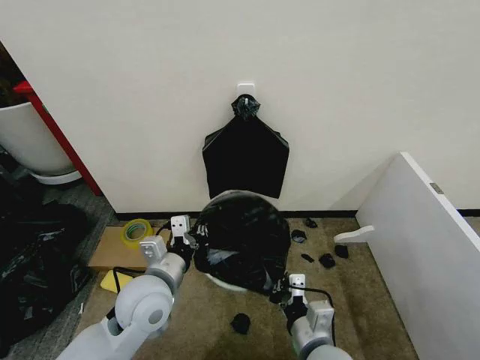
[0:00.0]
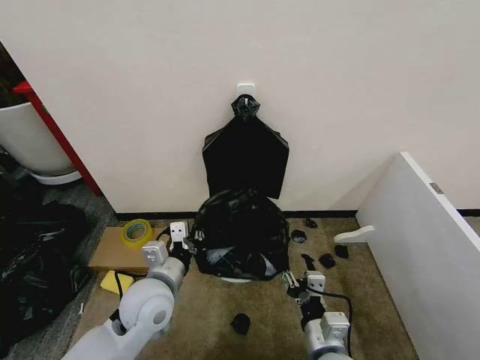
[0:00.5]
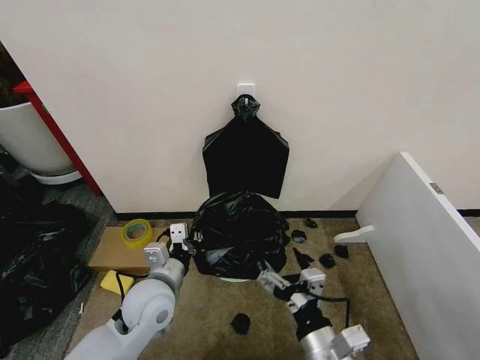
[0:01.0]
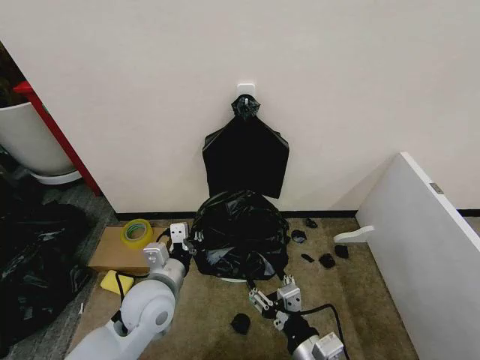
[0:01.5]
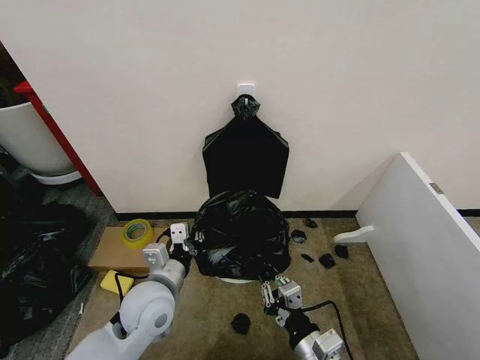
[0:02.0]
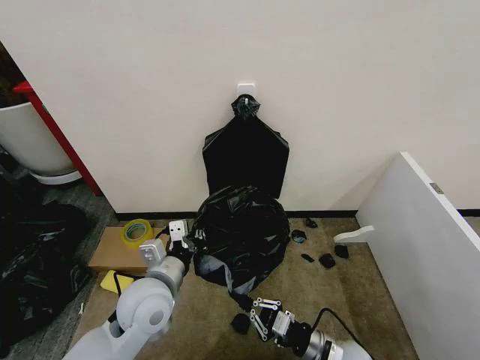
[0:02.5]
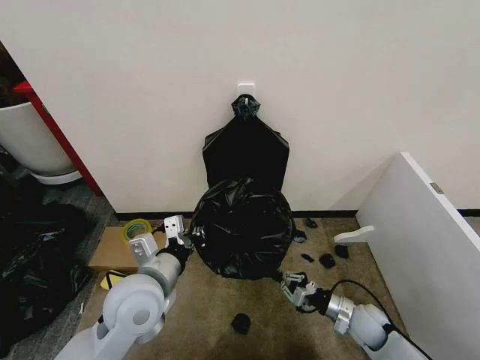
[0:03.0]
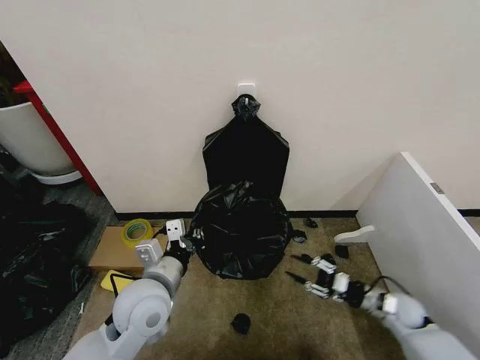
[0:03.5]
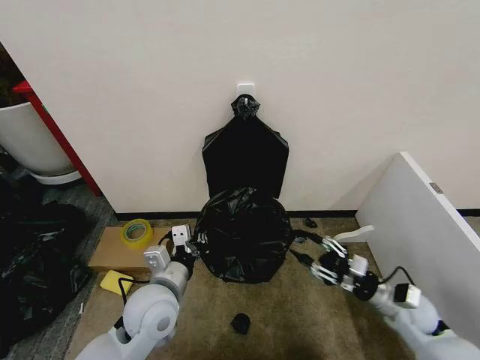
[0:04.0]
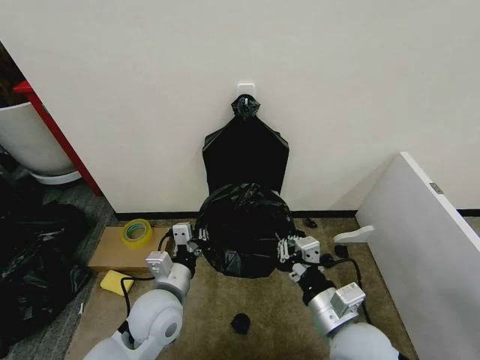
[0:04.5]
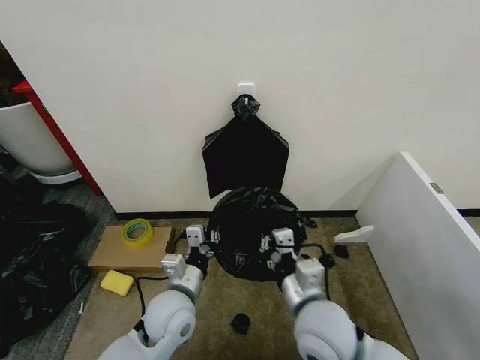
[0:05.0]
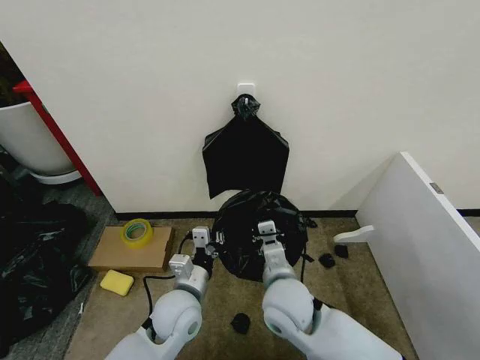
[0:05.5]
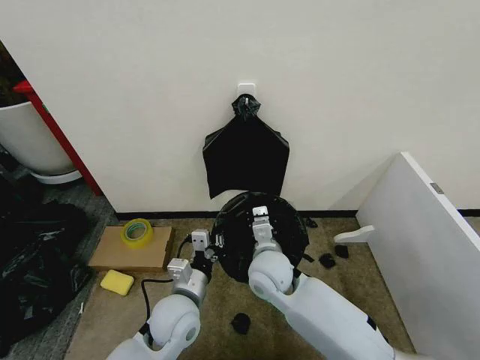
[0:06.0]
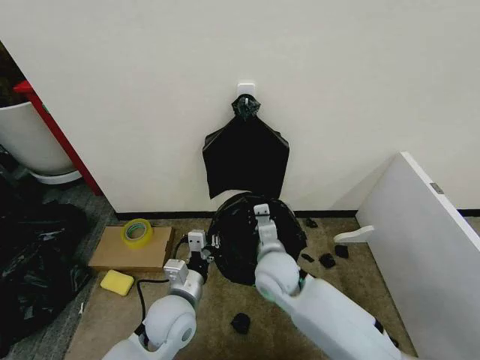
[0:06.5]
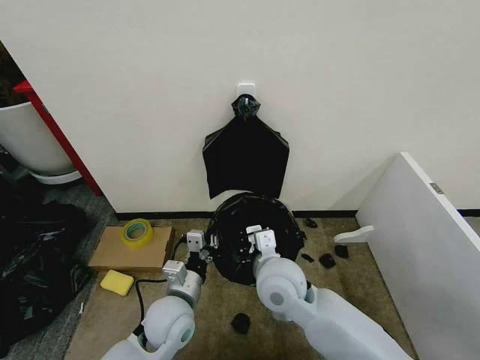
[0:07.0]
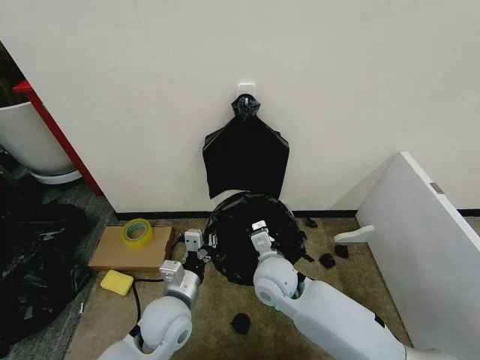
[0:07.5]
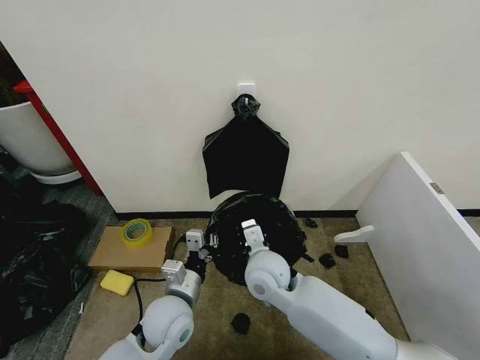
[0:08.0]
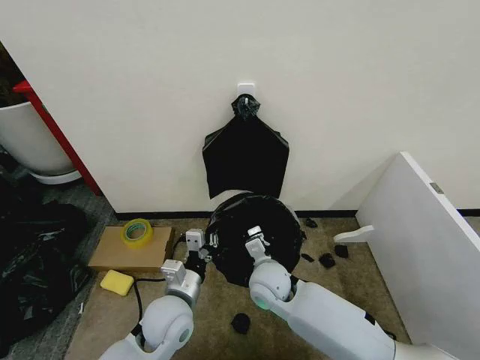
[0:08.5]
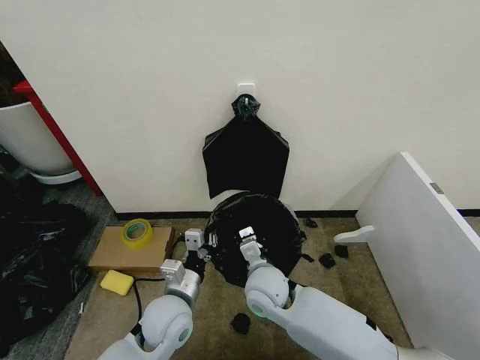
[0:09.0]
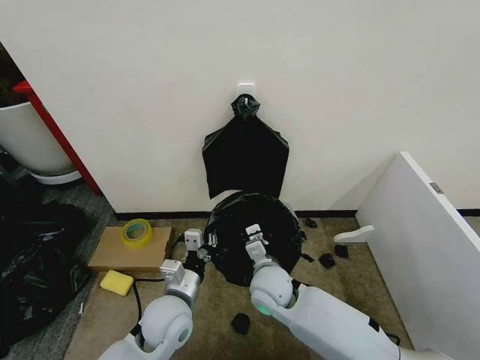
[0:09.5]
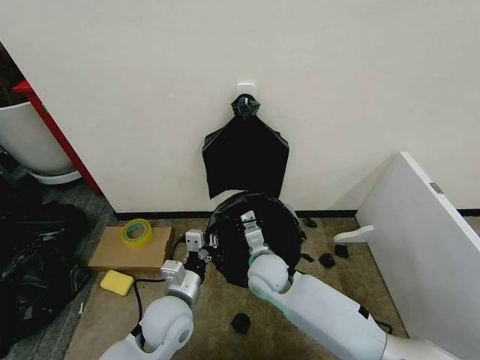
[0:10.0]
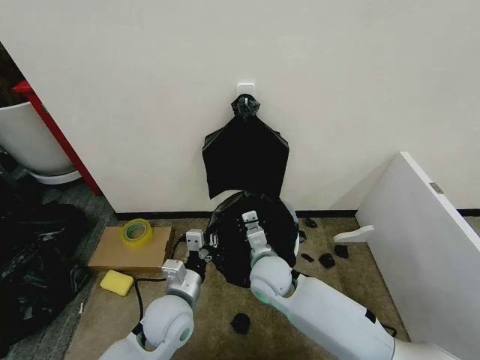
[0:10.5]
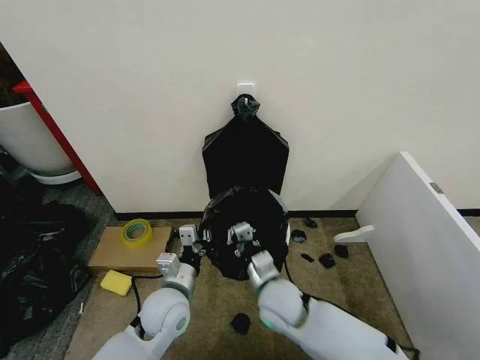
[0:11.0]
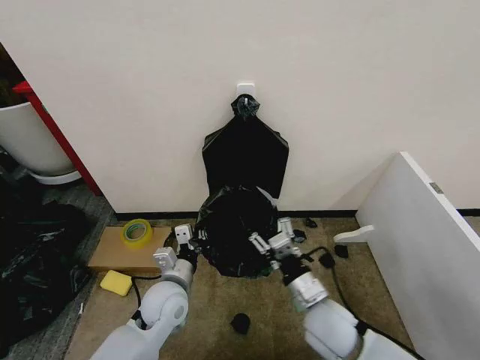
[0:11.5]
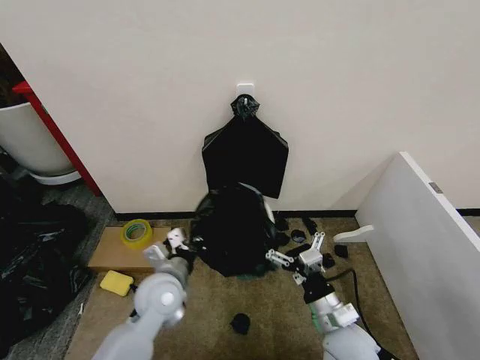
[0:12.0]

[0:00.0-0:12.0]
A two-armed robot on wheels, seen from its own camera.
Task of the whole recording: Place the garbage bag over the trash bin.
0:00.0 to 0:02.0: The right gripper opens, then closes again.
0:02.0 to 0:04.0: The right gripper shifts approximately 25 cm to the right and forward, and opens up.
0:04.0 to 0:06.0: The right gripper goes some 30 cm to the left, and closes. The left gripper ends up some 5 cm from where it was.
0:08.0 to 0:10.0: The right gripper travels downward by approximately 5 cm.
0:10.0 to 0:12.0: The left gripper changes place by roughly 5 cm. The right gripper shifts about 20 cm backward and to the right, and opens its fingers.

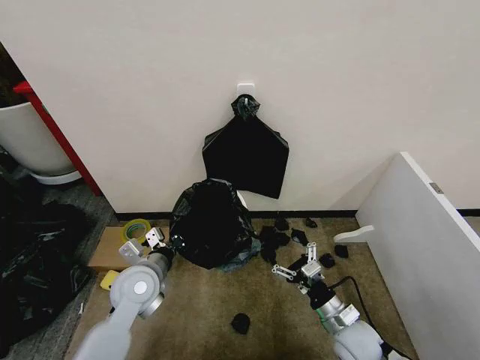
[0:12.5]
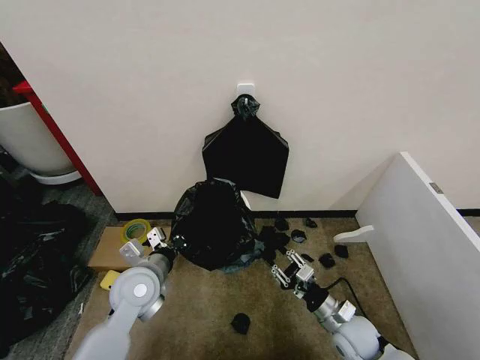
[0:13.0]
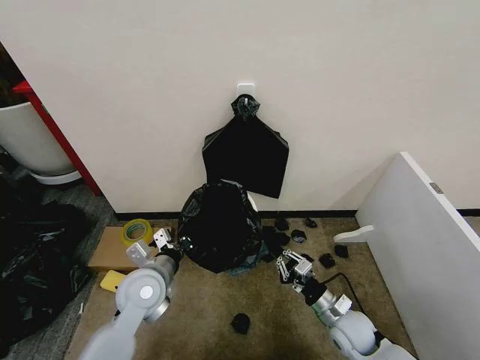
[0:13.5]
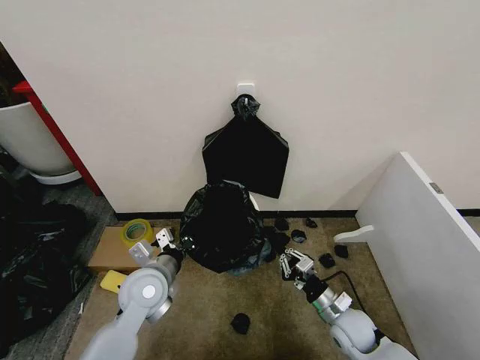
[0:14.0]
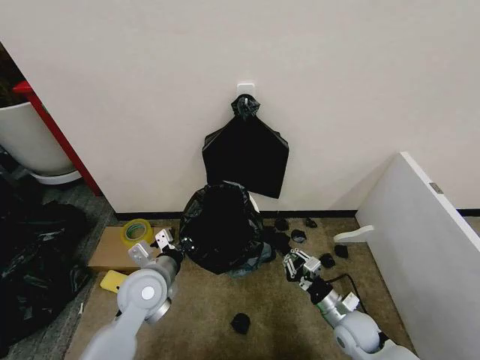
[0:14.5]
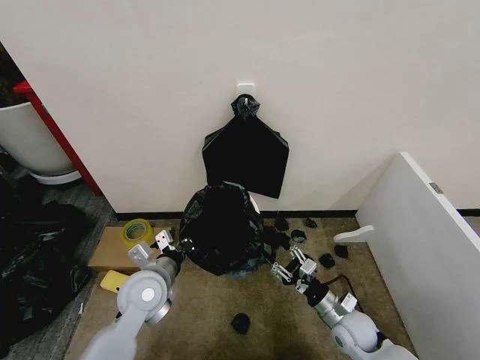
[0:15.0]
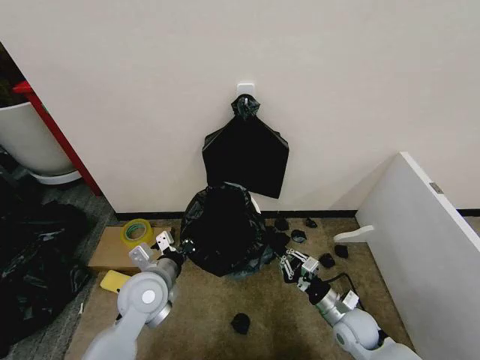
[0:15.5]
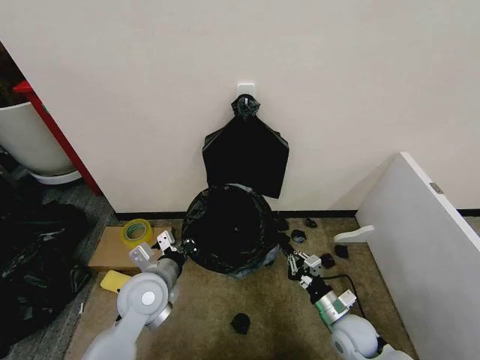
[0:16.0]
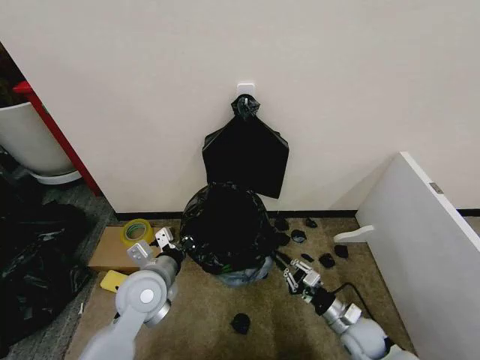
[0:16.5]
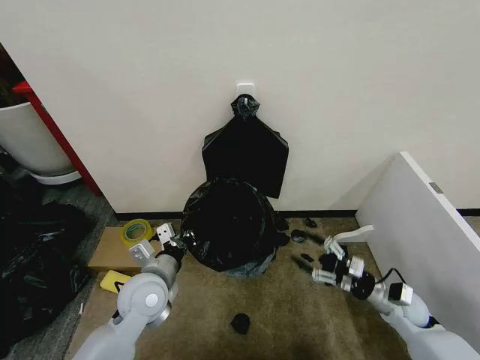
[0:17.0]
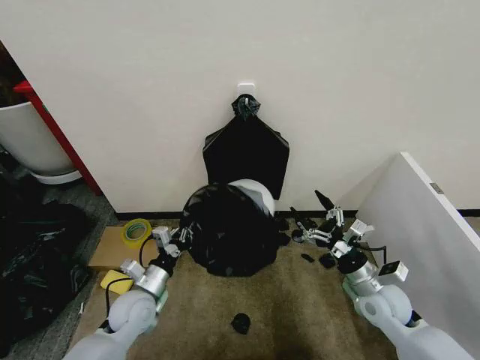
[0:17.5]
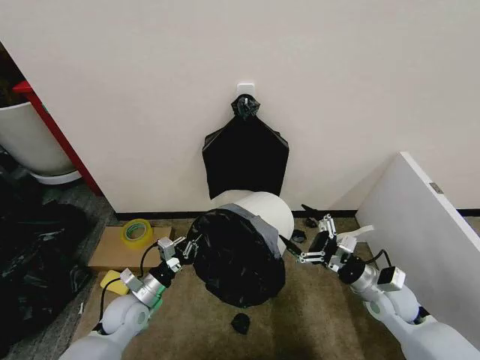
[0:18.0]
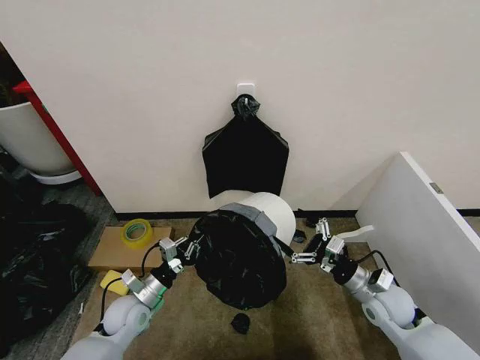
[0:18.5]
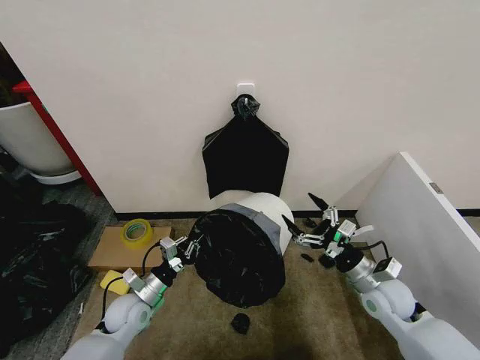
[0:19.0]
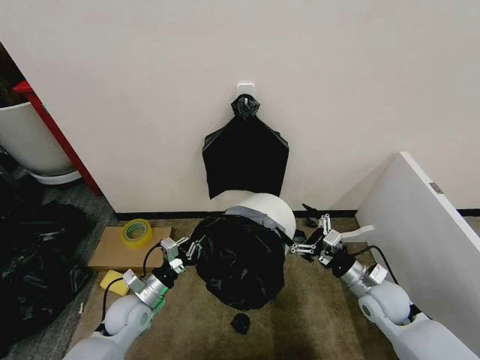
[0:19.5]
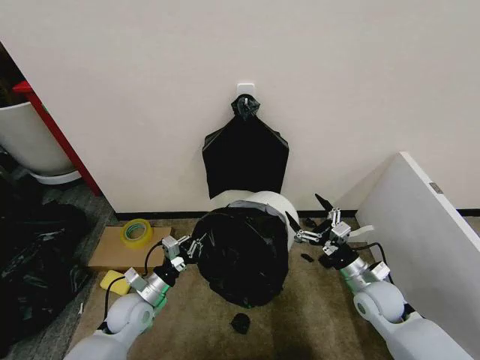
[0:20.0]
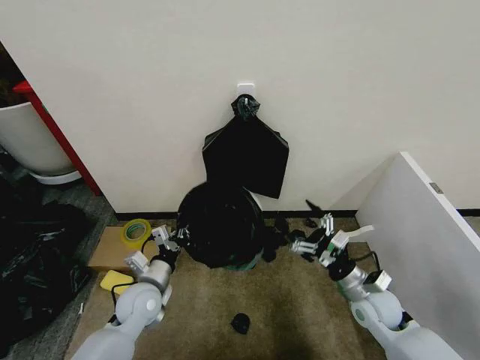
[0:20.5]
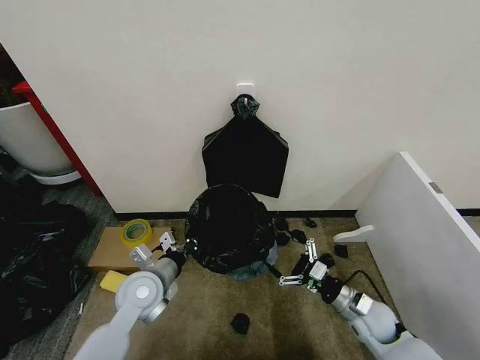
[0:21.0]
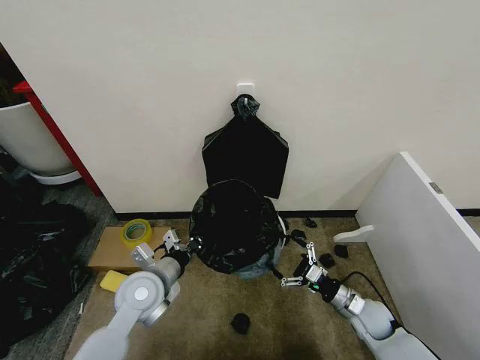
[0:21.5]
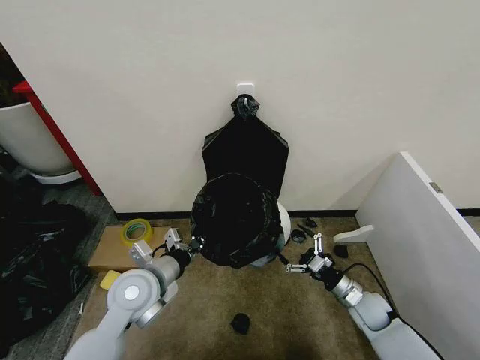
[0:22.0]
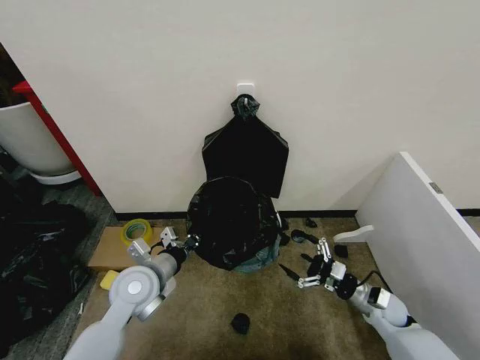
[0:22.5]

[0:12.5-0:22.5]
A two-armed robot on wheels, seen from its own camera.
Task of the whole recording: Place the garbage bag over the trash bin.
0:12.5 to 0:14.5: The right gripper closes up.
0:14.5 to 0:16.5: The right gripper opens and closes again.
0:16.5 to 0:18.5: The left gripper is displaced downward and to the left by about 15 cm. Meanwhile the right gripper is displaced upward by approximately 10 cm, and opens.
0:20.5 to 0:22.5: The left gripper heads upward, covering roughly 10 cm. The right gripper is displaced downward and to the right by some 10 cm.

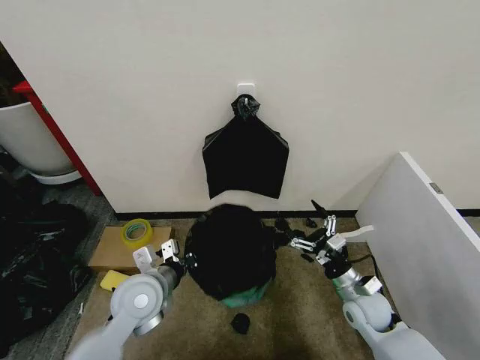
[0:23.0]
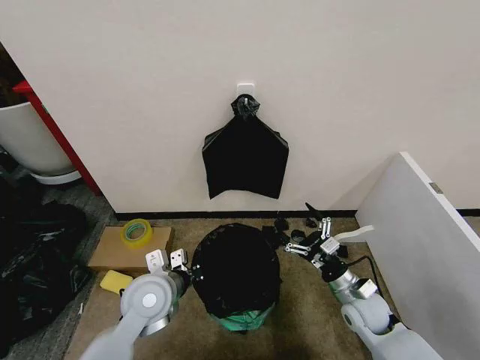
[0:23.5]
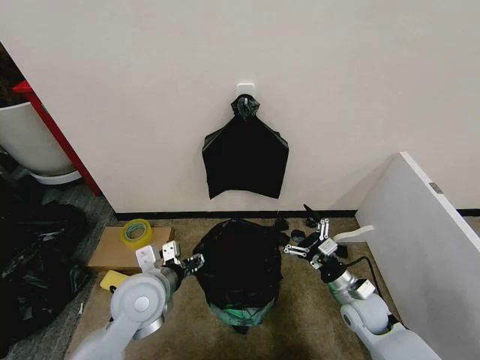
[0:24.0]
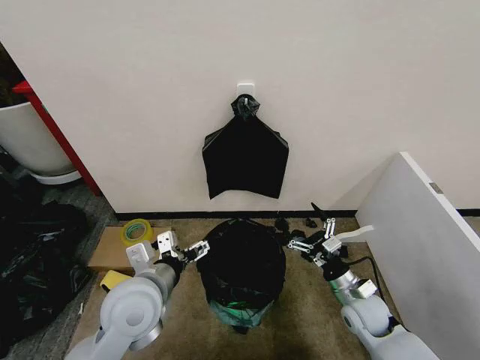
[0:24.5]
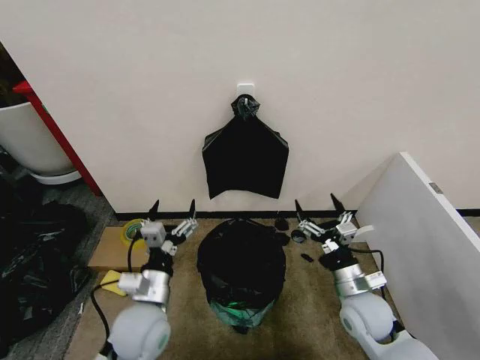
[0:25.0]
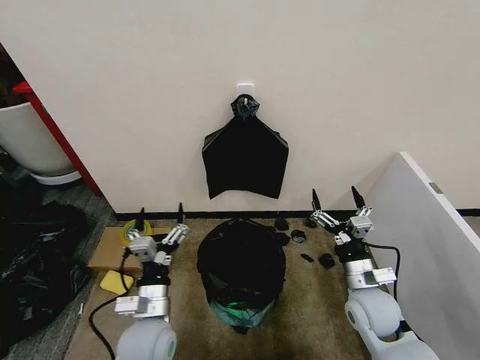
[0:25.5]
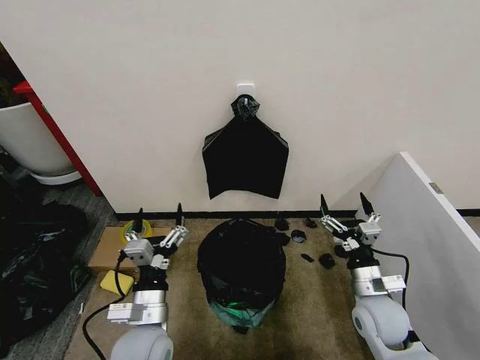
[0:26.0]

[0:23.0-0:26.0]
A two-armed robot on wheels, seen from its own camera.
Task of the whole recording: Place the garbage bag over the trash bin.
0:23.0 to 0:24.5: The left gripper travels upward by about 5 cm, and opens.
0:24.5 to 0:26.0: The left gripper goes some 10 cm downward. The right gripper heads upward, covering roughly 5 cm.
